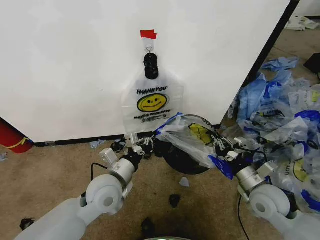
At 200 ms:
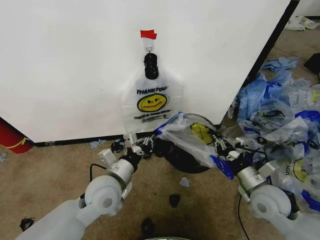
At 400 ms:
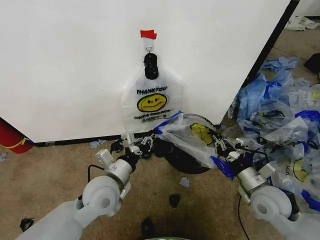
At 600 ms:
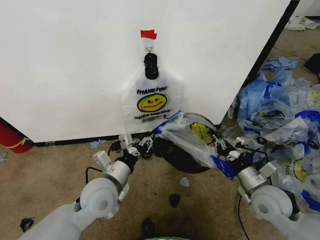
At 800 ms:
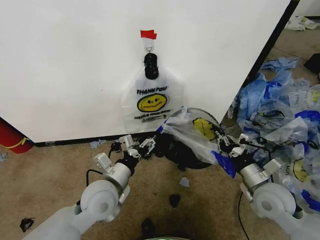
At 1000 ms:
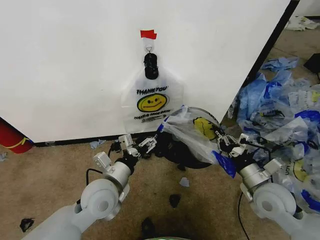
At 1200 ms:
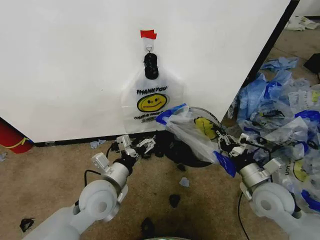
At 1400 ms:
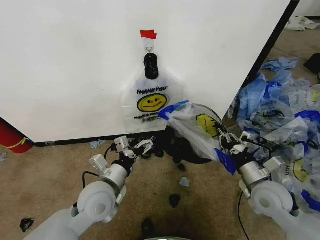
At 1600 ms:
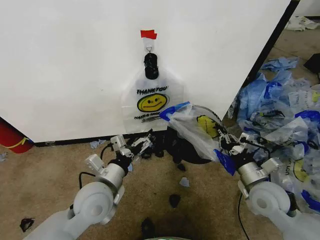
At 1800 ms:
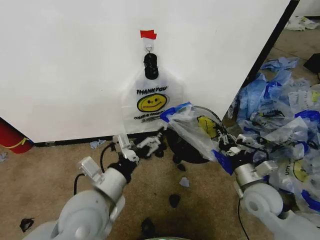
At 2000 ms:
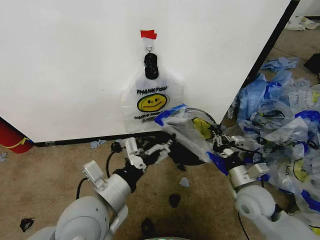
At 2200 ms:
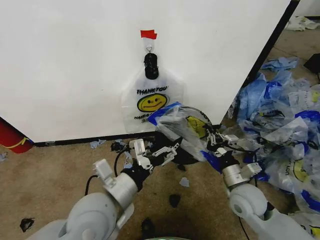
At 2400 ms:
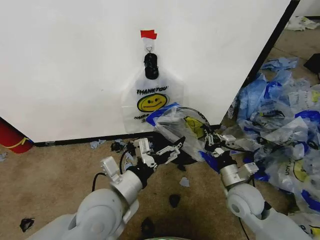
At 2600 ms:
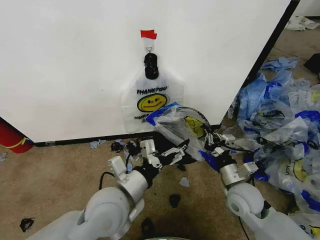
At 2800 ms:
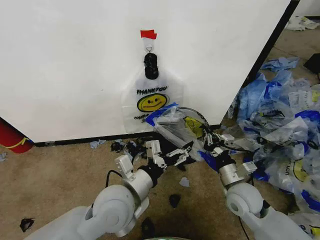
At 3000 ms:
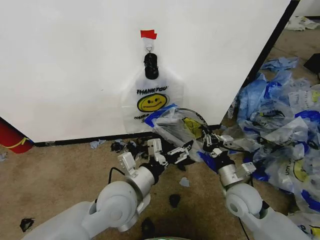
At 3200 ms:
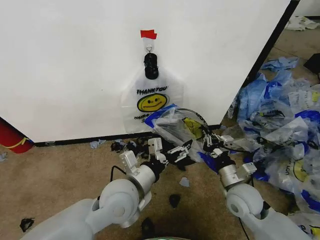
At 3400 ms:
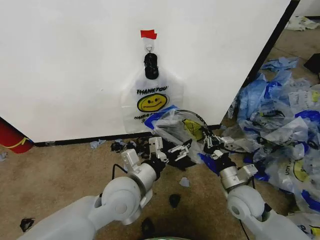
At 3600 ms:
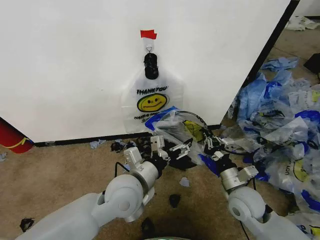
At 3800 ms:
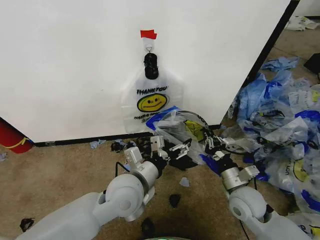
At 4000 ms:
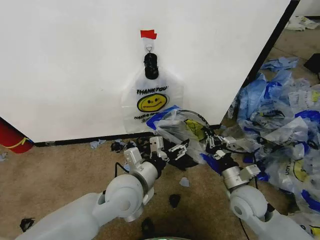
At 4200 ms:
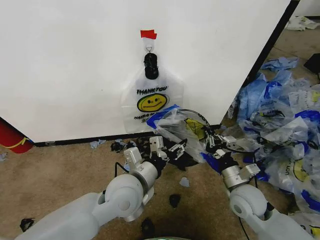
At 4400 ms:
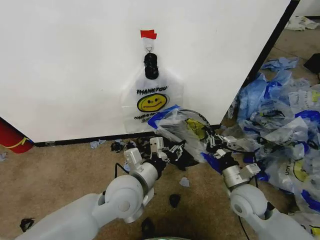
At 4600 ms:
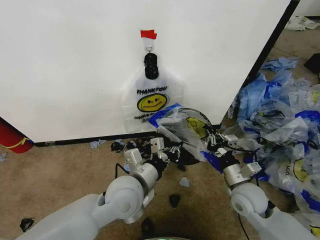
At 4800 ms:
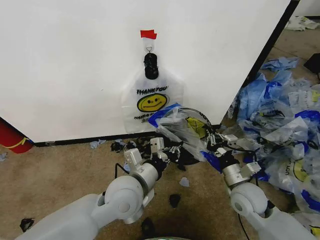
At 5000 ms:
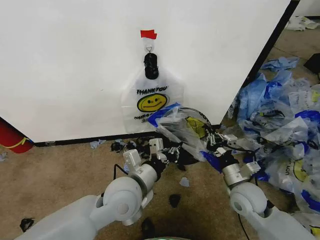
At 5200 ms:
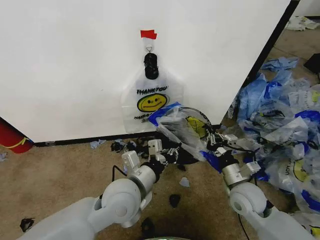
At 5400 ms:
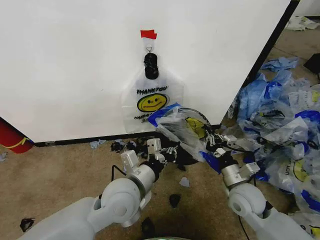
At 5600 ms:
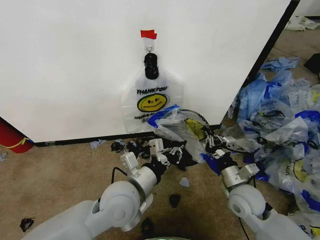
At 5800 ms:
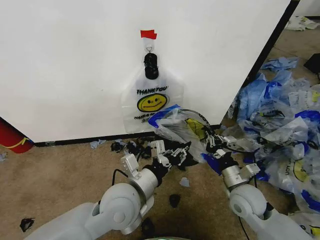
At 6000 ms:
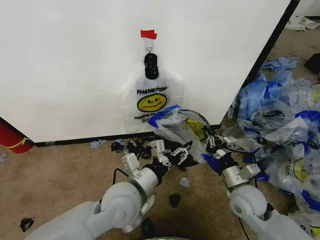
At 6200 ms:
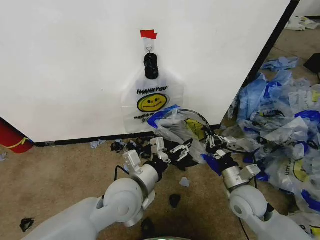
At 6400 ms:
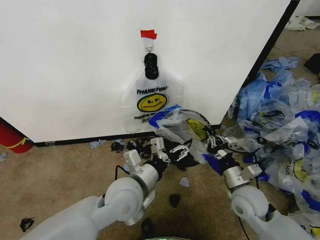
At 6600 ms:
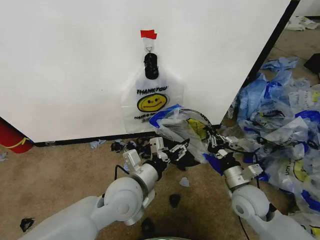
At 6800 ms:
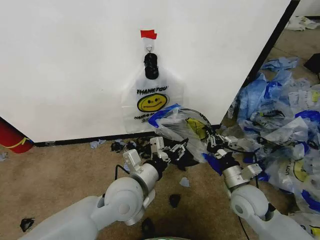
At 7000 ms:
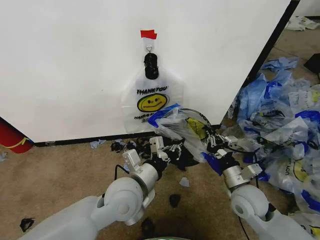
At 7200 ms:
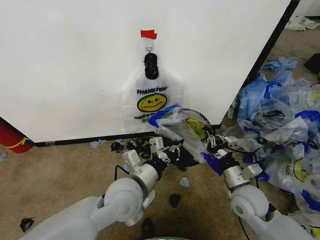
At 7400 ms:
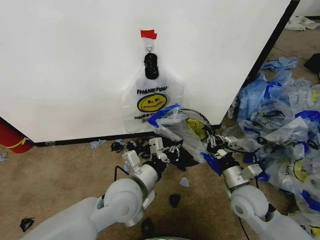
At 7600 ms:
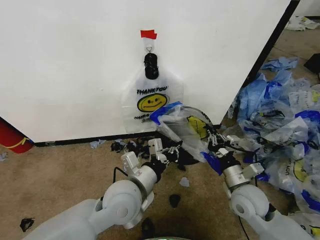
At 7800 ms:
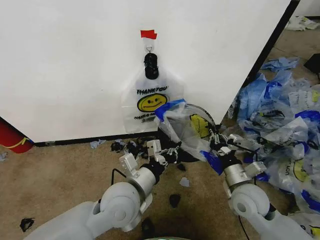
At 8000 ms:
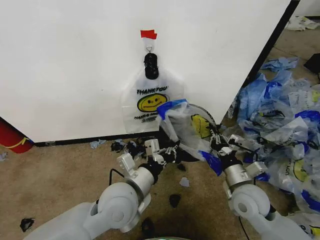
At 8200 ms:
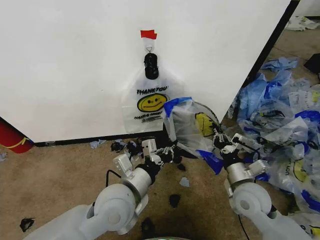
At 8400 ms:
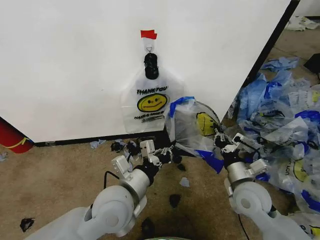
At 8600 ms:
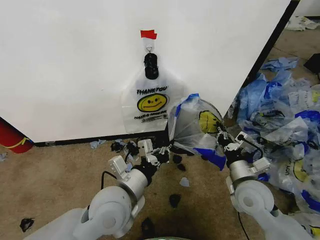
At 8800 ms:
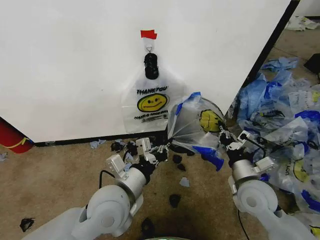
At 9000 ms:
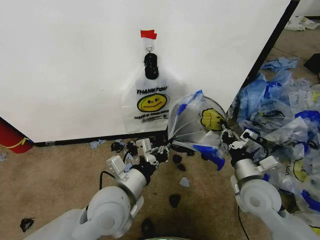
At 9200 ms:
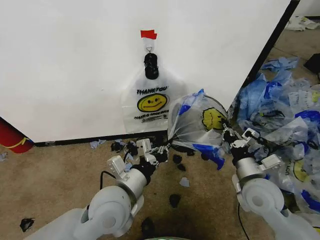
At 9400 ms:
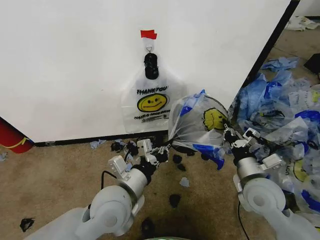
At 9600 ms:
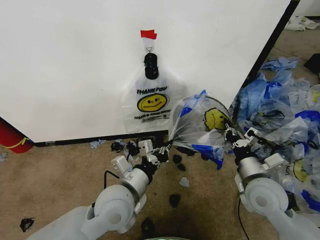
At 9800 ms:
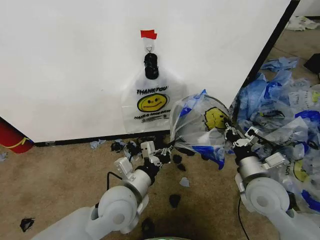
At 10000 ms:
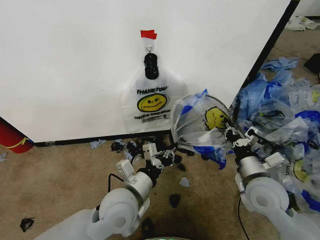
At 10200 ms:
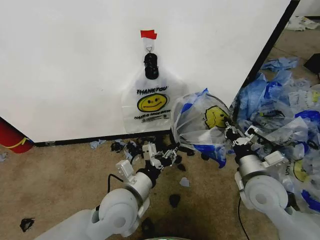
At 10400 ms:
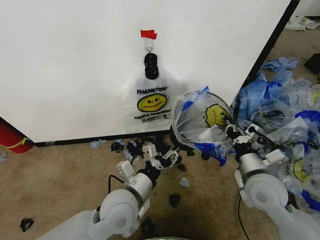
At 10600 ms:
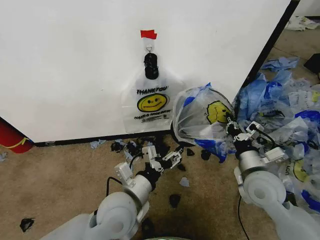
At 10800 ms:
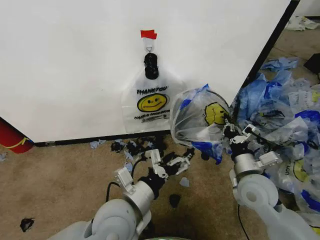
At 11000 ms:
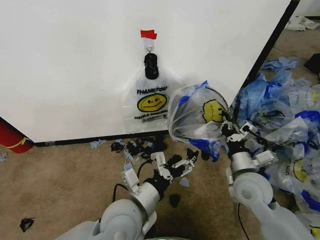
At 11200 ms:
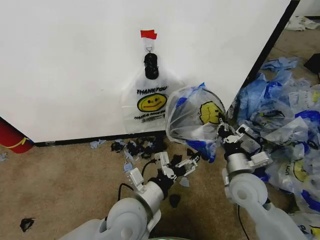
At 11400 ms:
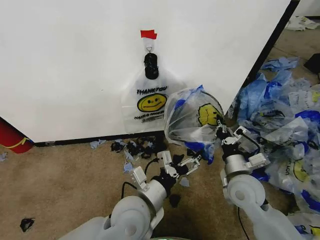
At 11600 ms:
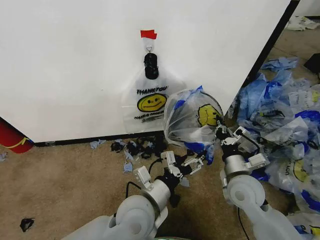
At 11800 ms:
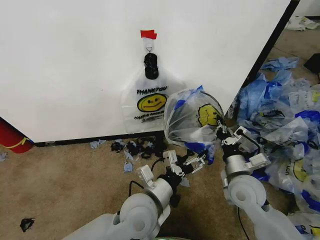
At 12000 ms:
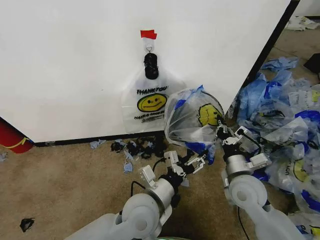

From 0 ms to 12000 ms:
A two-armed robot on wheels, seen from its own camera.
Task of the whole recording: Pick up the garbage bag from the wall and place it over the trash bin.
From 0 ms to 1600 ms: The left gripper opens up.
From 1600 ms to 3000 ms: The right gripper is displaced to the left by some 5 cm, while the left gripper travels to the right by roughly 5 cm.
From 3000 ms to 4400 ms: The left gripper closes up.
From 4400 ms to 6000 ms: The grippers move only a little.
From 6000 ms to 7600 ms: The left gripper closes.
From 9000 ms to 10400 ms: The left gripper opens up.
From 10400 ms to 12000 ms: The left gripper goes some 5 cm to the right.

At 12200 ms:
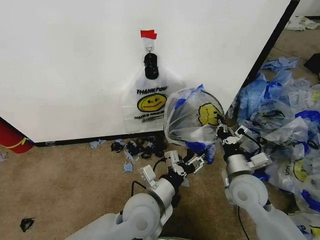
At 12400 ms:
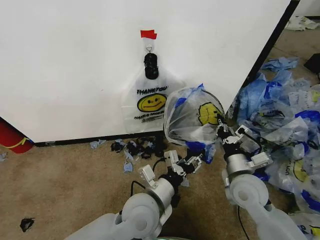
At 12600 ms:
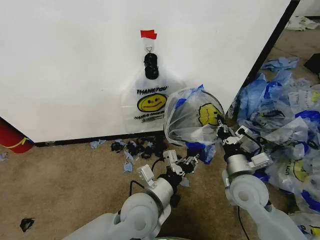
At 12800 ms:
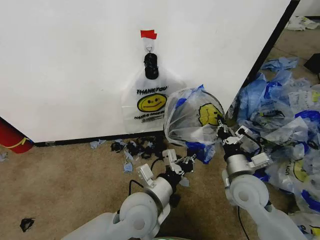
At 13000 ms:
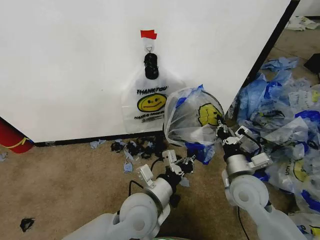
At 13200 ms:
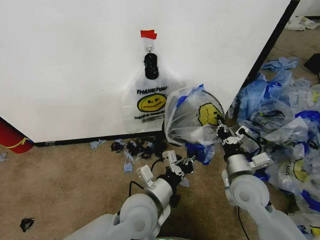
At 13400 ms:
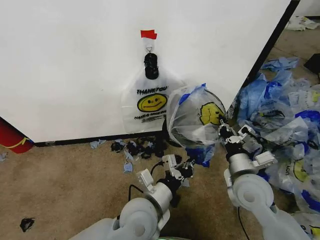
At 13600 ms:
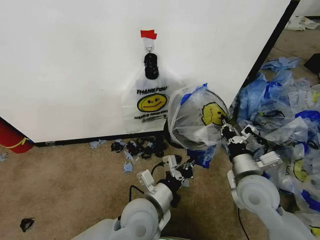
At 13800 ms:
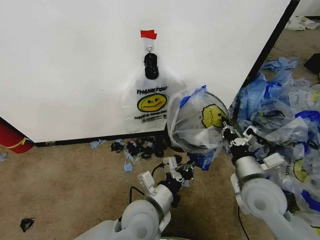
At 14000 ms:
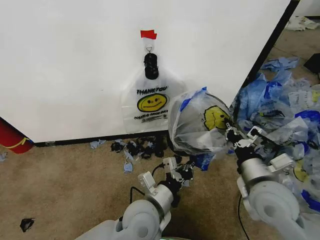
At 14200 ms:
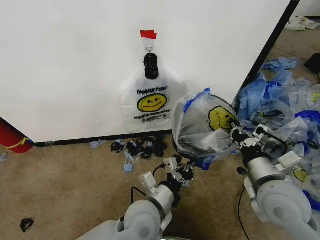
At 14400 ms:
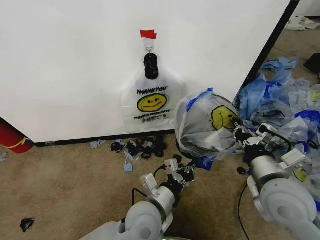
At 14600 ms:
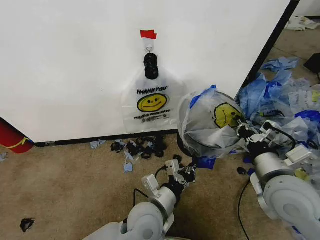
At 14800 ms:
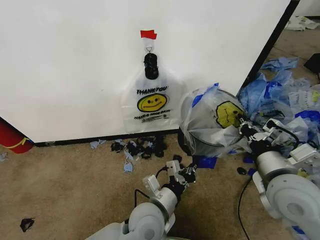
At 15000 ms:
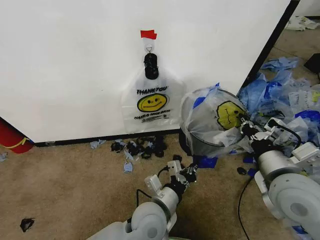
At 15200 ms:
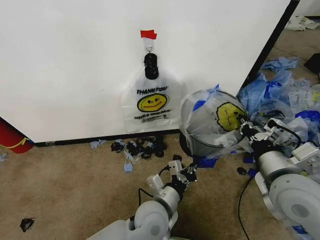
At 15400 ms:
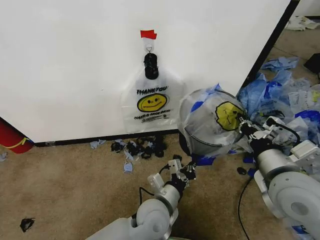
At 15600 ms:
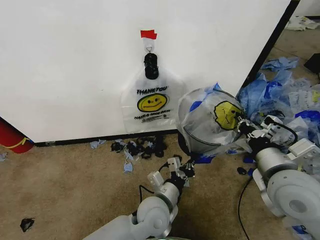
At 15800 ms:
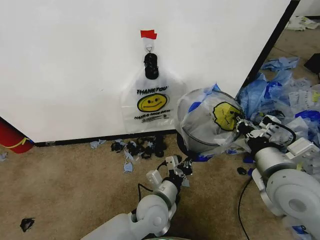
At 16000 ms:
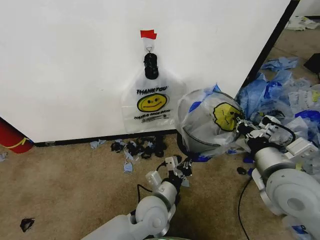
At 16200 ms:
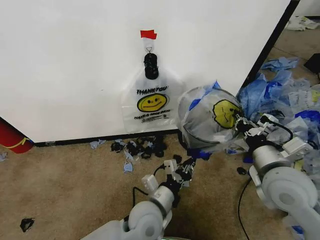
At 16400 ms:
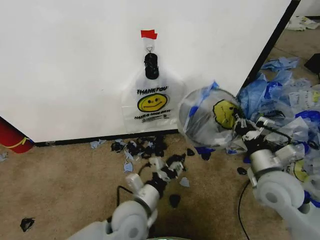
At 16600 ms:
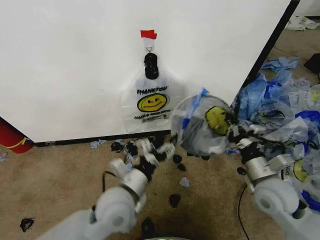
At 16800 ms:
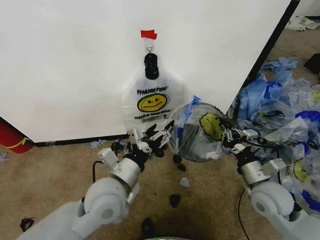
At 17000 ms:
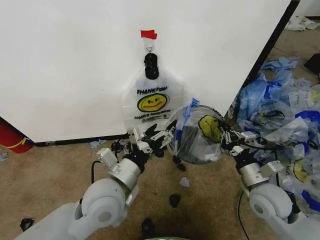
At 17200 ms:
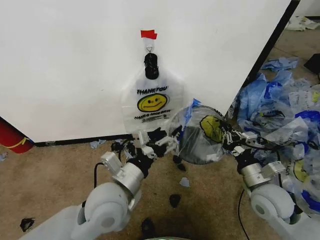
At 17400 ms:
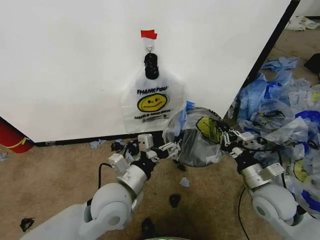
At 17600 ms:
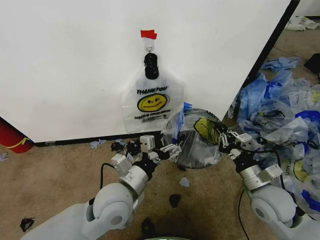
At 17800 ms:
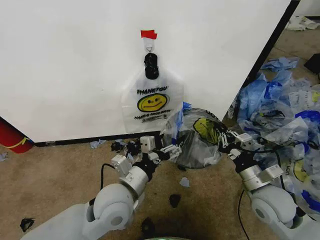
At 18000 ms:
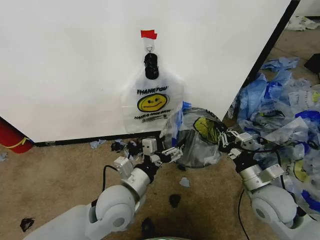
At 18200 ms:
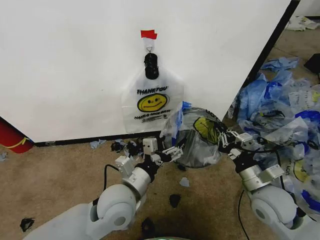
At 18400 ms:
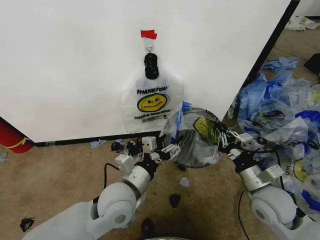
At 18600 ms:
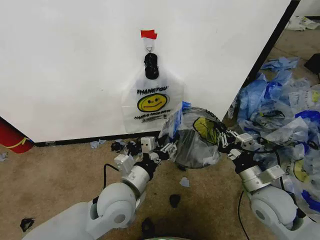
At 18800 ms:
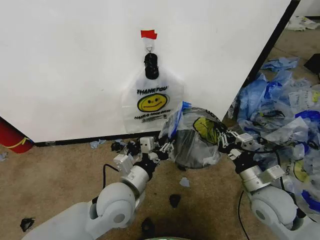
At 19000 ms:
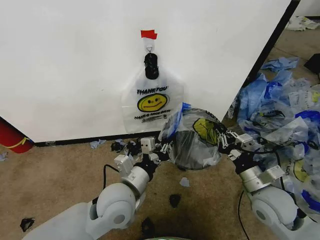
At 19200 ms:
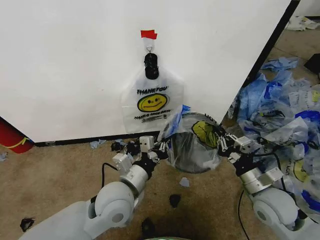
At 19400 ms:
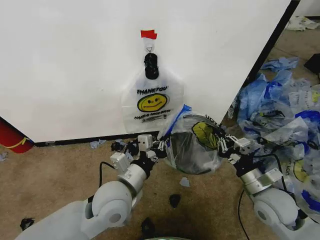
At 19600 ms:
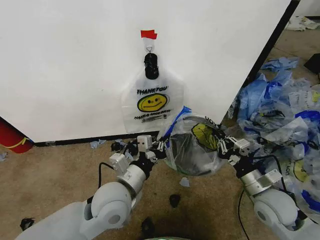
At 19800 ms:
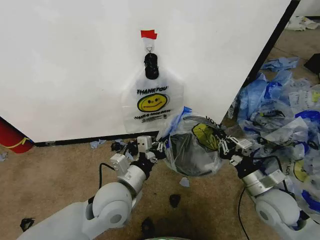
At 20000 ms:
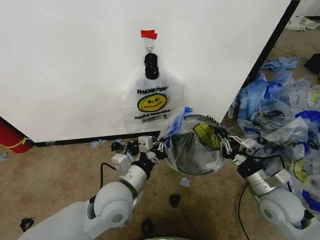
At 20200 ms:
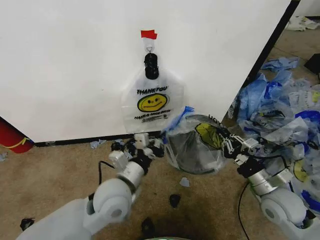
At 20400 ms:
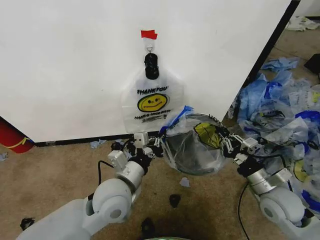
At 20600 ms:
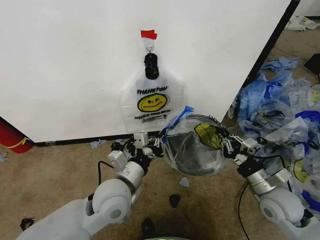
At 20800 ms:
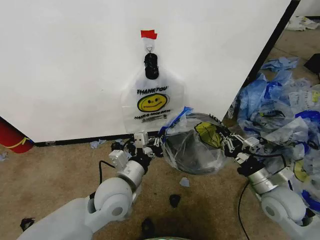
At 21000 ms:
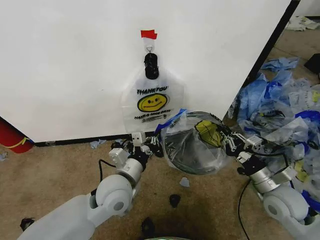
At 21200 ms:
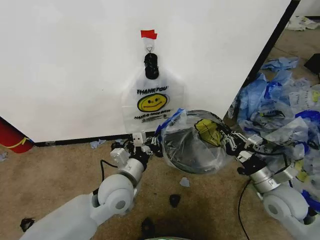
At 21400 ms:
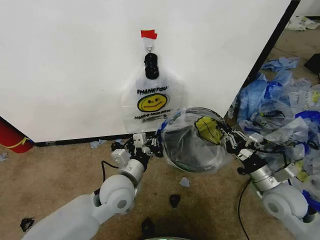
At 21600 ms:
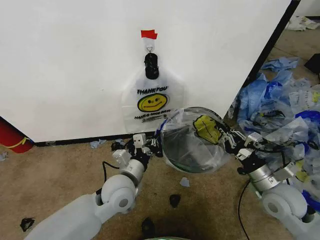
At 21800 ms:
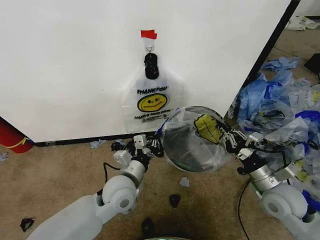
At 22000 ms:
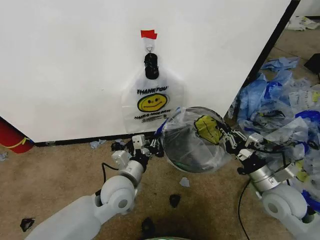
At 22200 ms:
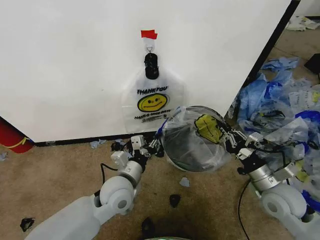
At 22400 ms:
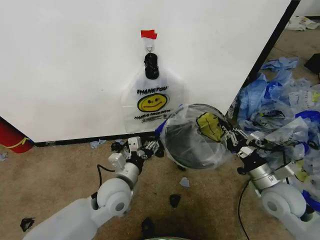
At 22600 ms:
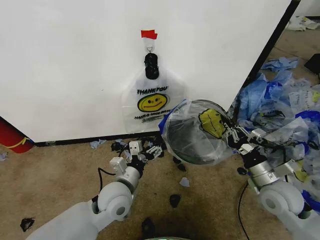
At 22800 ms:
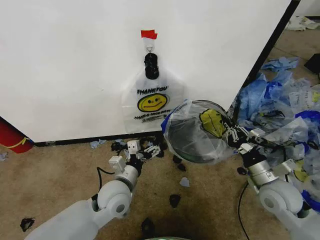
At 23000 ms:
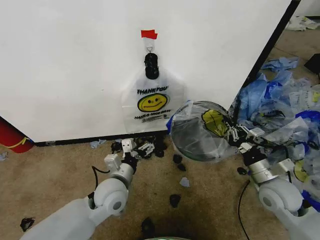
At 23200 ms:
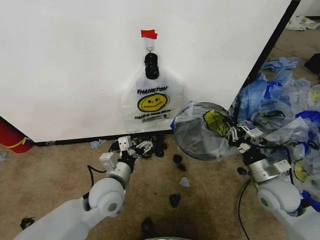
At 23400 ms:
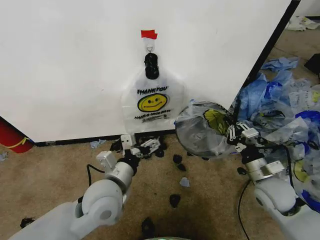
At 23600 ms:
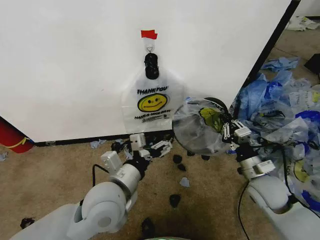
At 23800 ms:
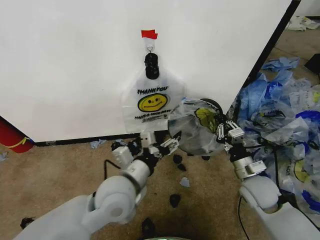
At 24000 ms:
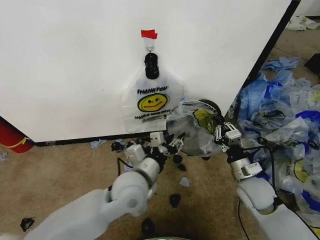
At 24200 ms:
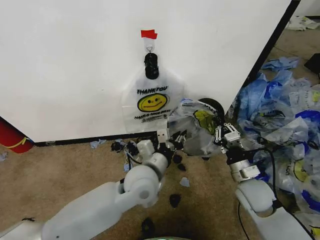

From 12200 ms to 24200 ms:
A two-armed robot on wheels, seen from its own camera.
Task of the whole recording: Pick up the garbage bag from the wall and place it over the trash bin.
From 12200 ms to 13800 ms: The right gripper moves about 5 cm, while the left gripper closes its fingers.
From 13800 ms to 15200 ms: The right gripper heads upward, covering approximately 5 cm.
From 15200 ms to 16600 ms: The right gripper shifts roughly 10 cm downward. Meanwhile the left gripper travels to the left by roughly 10 cm, and opens.
From 18200 ms to 19800 ms: The left gripper closes.
From 19800 ms to 21200 ms: The grippers move only a little.
From 21200 ms to 22600 ms: The left gripper opens its fingers.
From 22600 ms to 24200 ms: The right gripper heads to the left, covering some 5 cm; the left gripper is displaced to the right and upward by about 10 cm, and closes.
